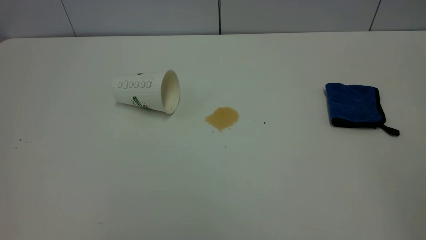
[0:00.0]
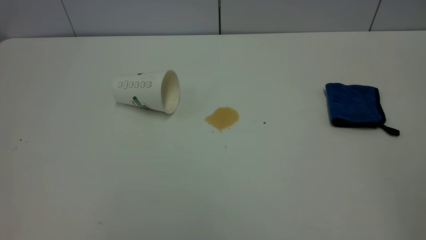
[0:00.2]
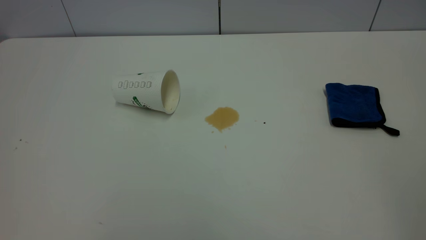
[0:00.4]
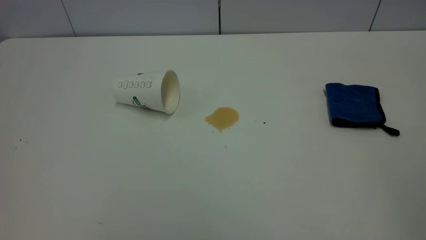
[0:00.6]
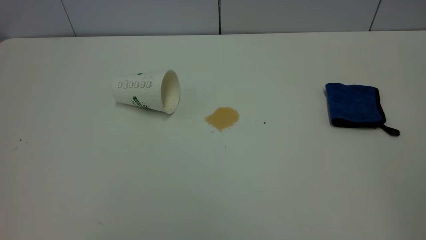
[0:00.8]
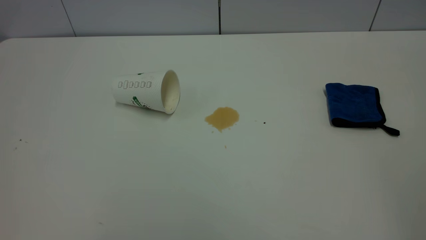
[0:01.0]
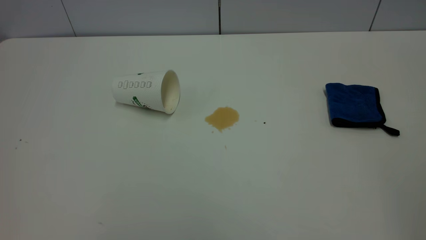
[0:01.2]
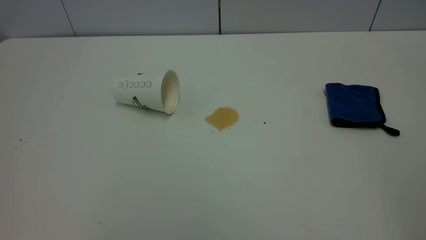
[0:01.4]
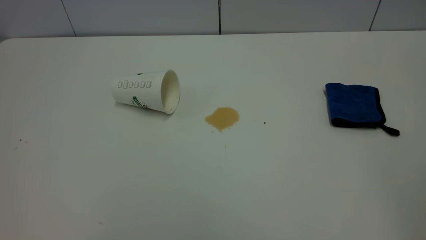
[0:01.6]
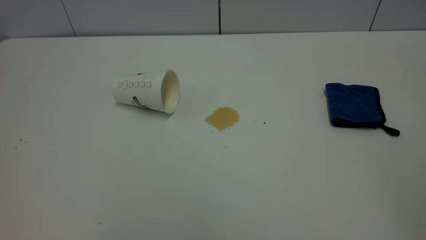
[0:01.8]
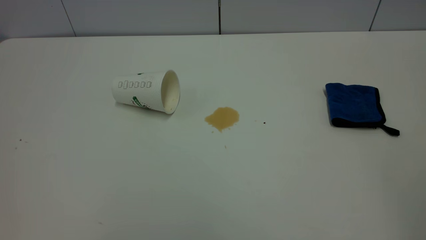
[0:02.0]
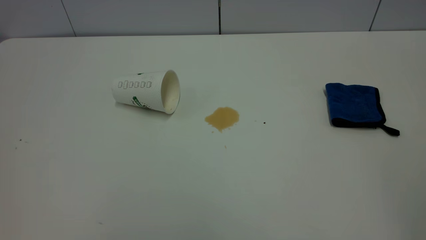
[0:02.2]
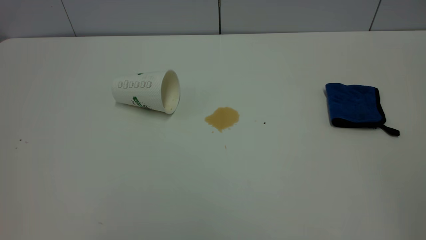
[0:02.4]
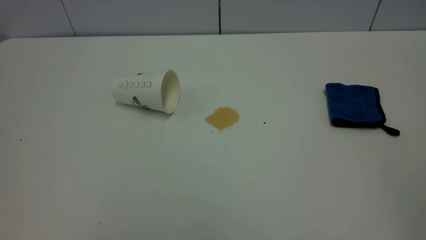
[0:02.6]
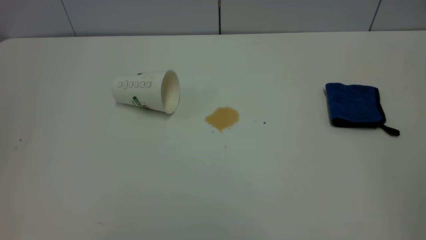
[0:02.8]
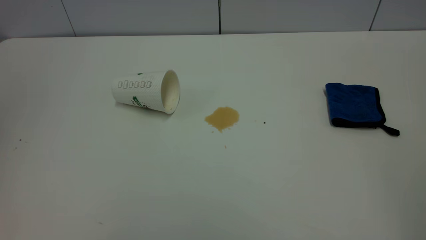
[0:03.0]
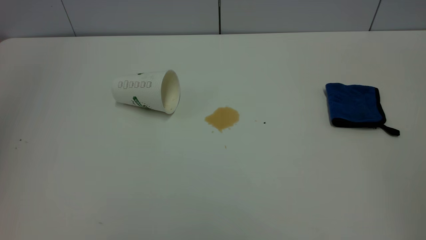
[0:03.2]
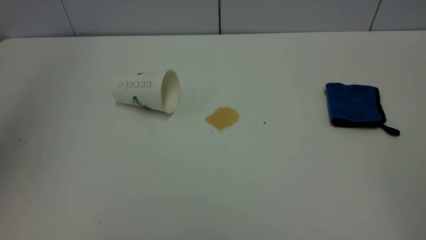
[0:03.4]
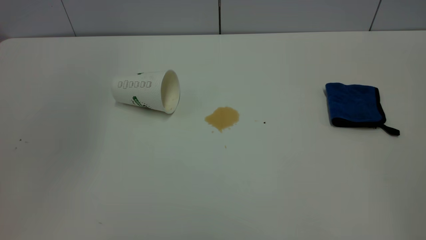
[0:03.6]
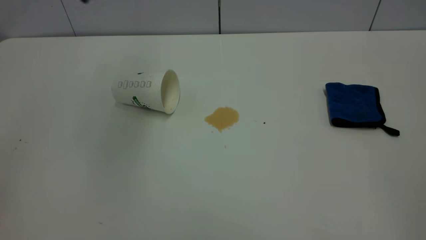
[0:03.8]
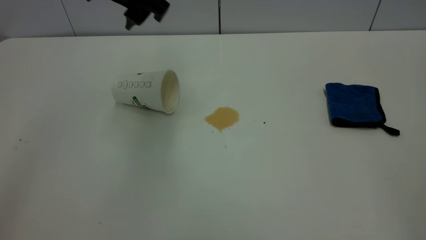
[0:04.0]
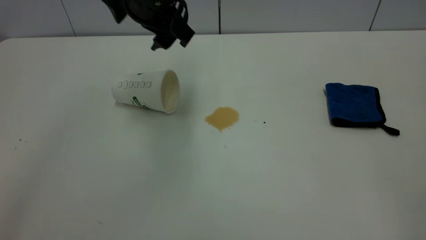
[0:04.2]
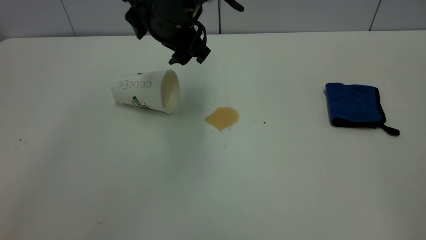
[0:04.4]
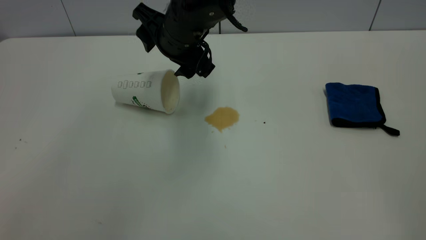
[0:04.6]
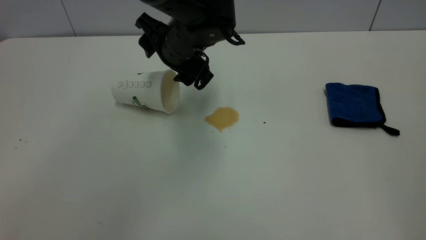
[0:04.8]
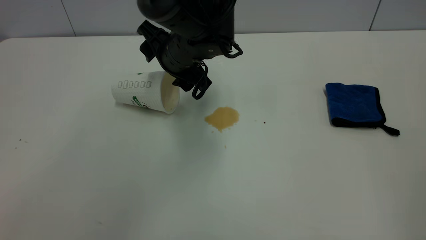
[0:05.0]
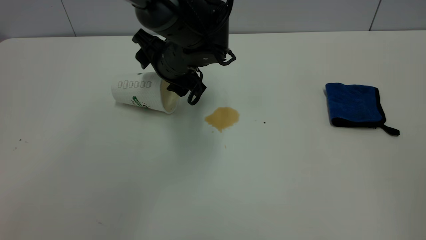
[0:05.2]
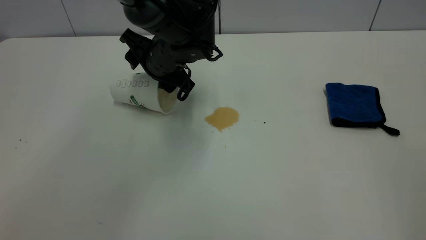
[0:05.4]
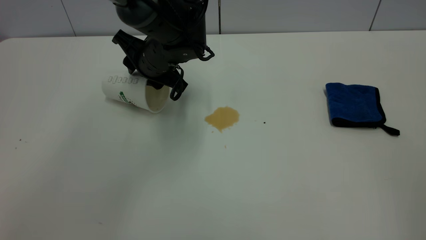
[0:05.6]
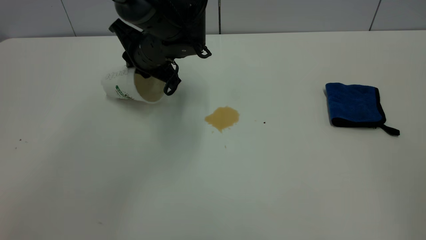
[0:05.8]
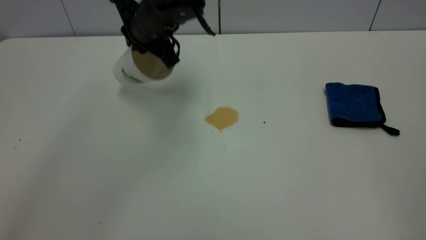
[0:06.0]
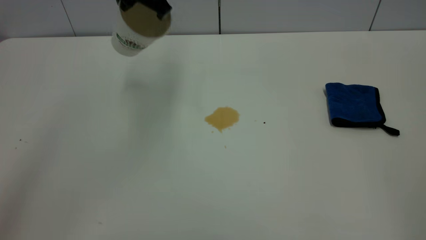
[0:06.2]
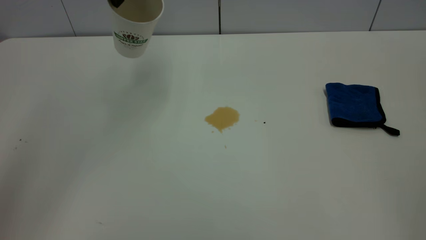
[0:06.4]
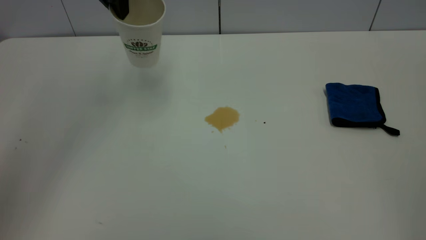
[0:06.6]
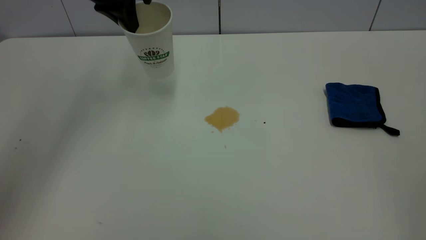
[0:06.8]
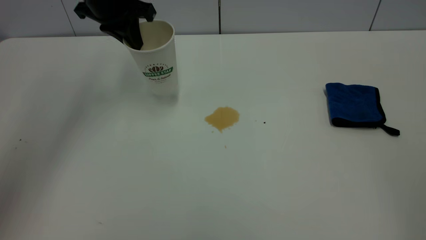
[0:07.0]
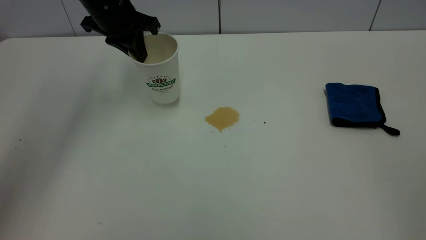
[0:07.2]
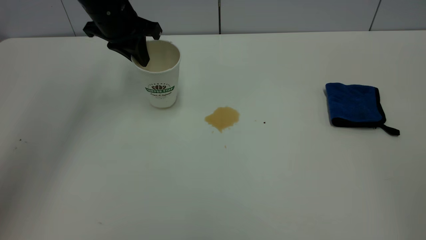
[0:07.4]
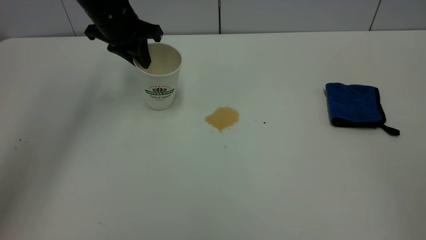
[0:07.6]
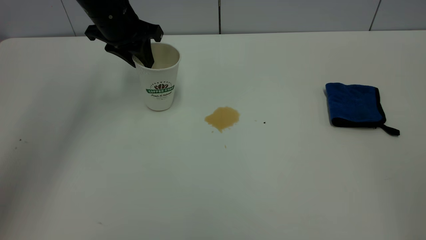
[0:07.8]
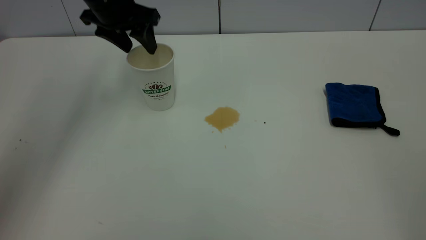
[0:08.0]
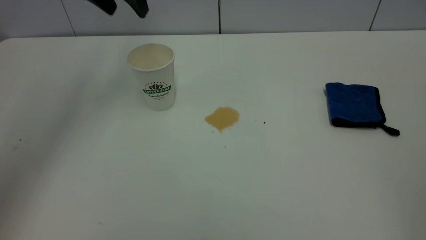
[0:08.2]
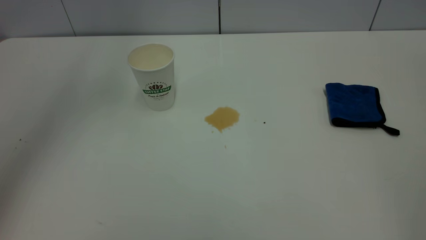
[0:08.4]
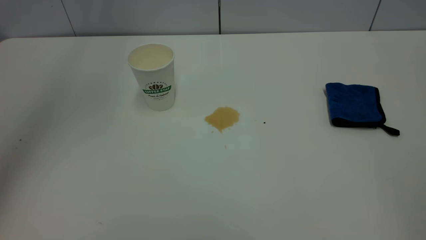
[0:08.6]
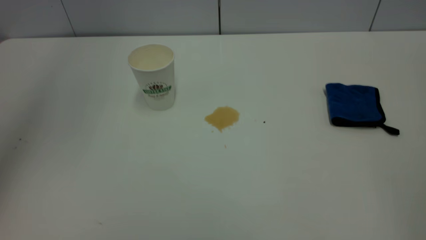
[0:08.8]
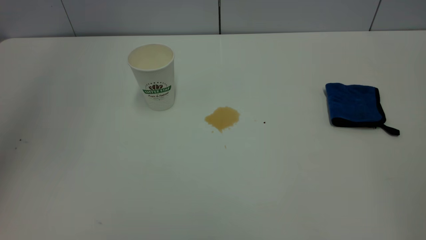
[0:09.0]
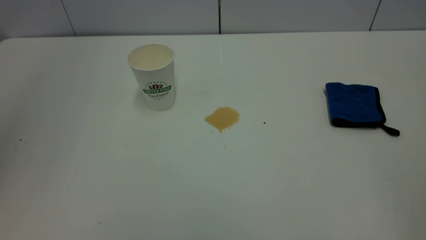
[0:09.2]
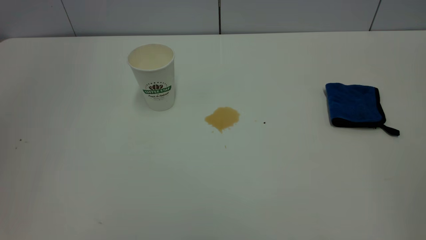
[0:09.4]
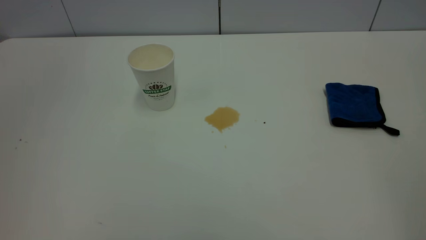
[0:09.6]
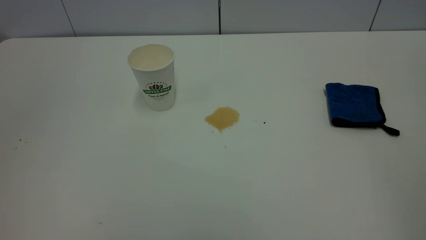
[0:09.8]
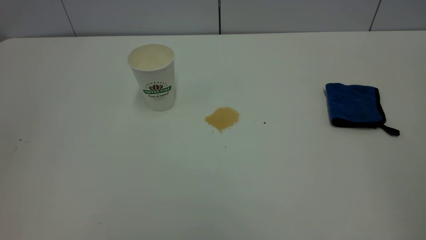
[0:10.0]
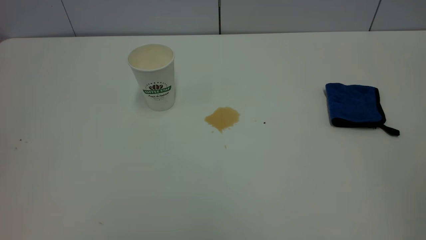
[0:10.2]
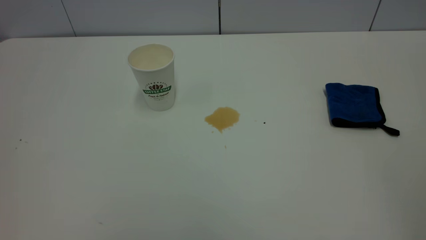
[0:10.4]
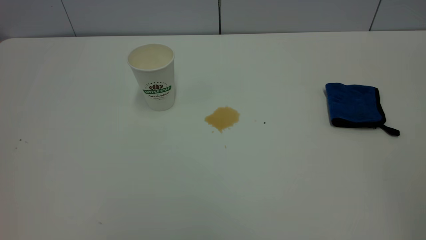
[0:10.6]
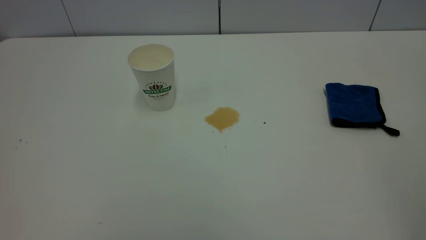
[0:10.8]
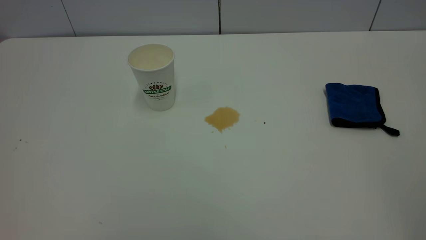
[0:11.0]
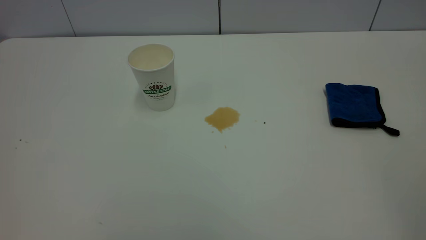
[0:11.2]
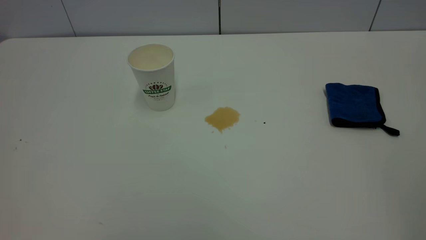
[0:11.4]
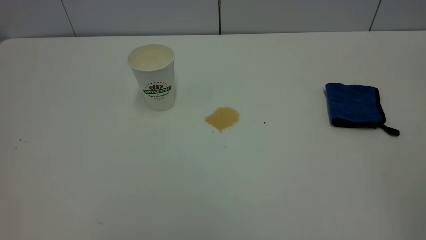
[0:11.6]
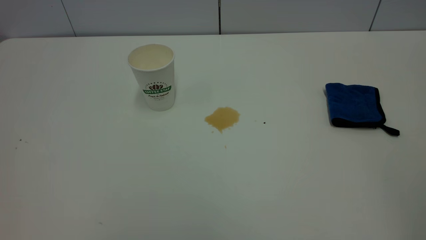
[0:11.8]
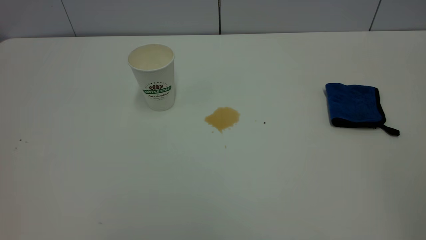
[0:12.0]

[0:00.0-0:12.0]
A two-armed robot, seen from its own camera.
Task of the whole recording: the left gripper pick up the fallen cup and place it upright, the right gripper grasp the blue rag and wipe the tea stain on the table, the right gripper put the blue rag back in its original position.
Step, 0:00.0 to 0:08.0: Stand the paper cup upright.
0:00.0 to 0:01.6: Both grippers stay put.
0:03.0 to 0:04.4: The left gripper shifts about 40 cm to the right, downward and forward.
0:04.4 to 0:06.0: The left gripper moves some 10 cm downward and comes back, and closes up.
0:06.0 to 0:07.6: The left gripper shifts about 10 cm to the left, and goes upward and returns, about 10 cm each way.
0:07.6 to 0:09.0: The left gripper shifts roughly 35 cm upward and backward, and opens.
0:09.0 to 0:10.4: The left gripper is displaced backward and downward by some 35 cm.

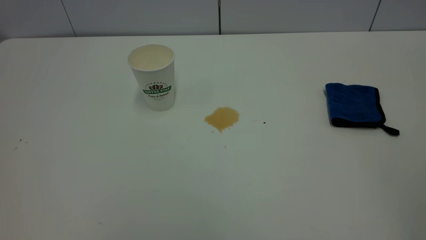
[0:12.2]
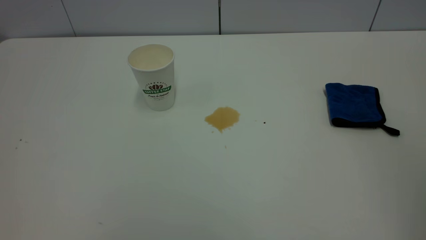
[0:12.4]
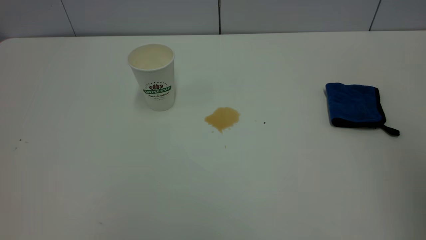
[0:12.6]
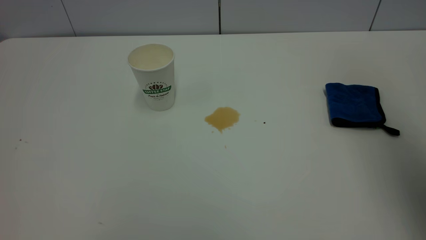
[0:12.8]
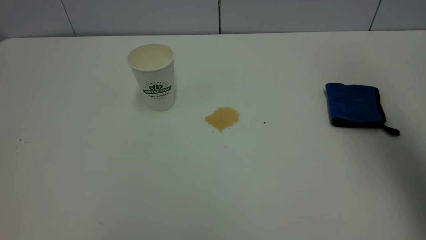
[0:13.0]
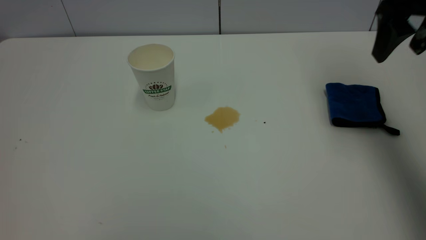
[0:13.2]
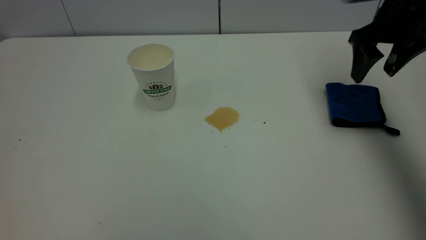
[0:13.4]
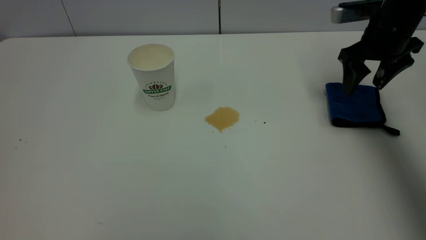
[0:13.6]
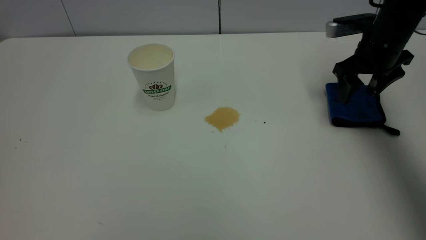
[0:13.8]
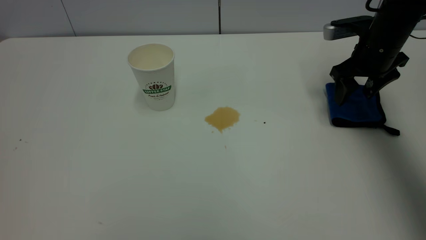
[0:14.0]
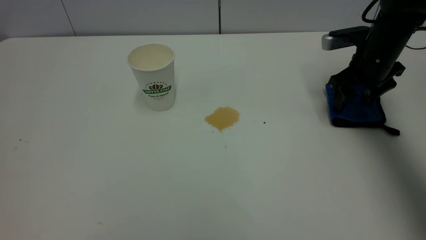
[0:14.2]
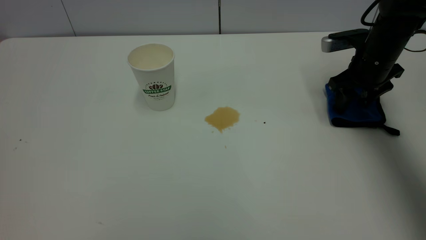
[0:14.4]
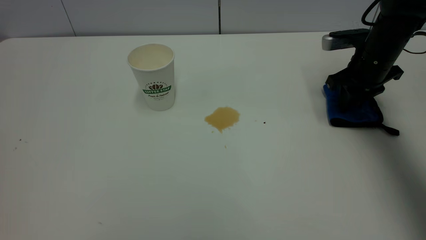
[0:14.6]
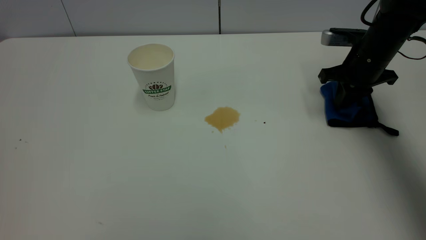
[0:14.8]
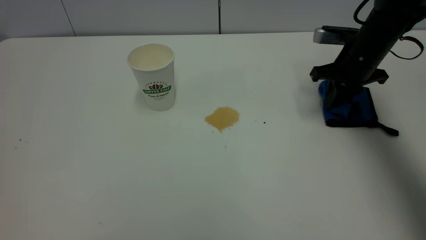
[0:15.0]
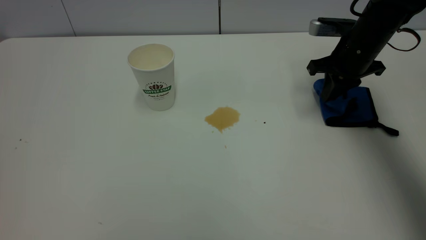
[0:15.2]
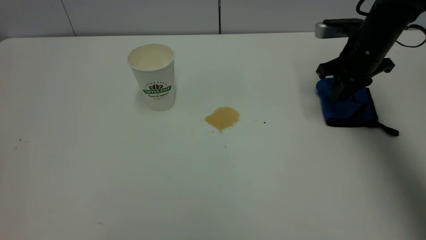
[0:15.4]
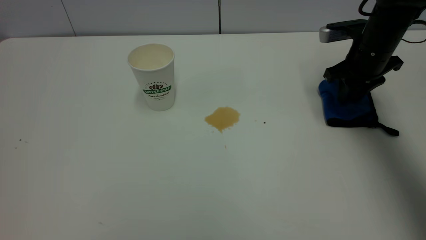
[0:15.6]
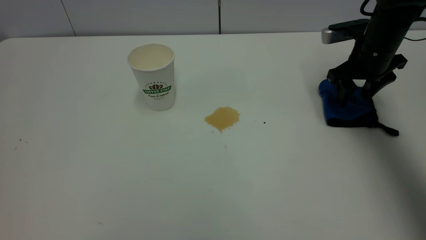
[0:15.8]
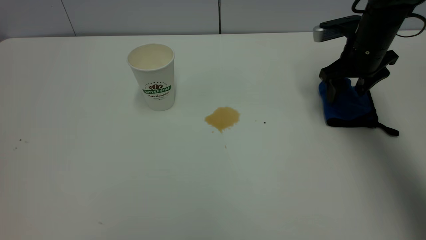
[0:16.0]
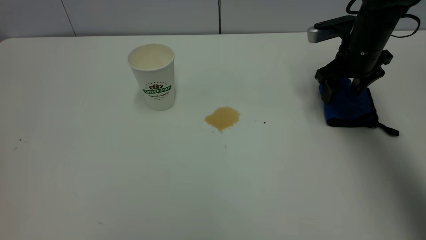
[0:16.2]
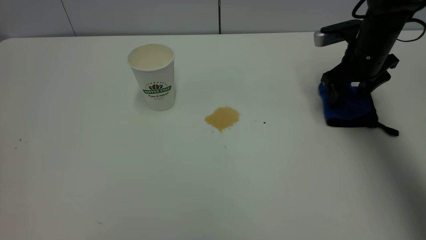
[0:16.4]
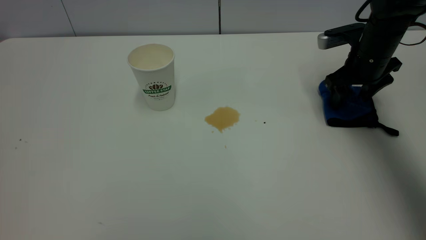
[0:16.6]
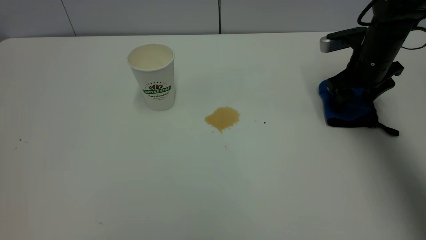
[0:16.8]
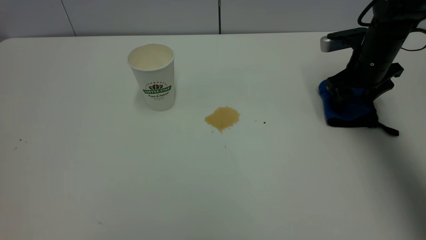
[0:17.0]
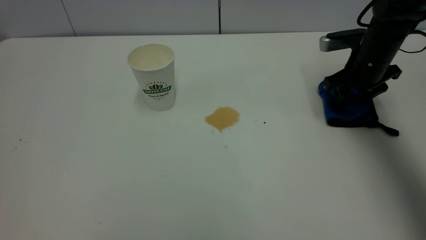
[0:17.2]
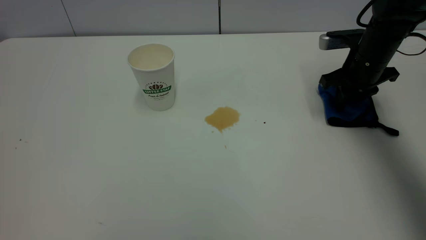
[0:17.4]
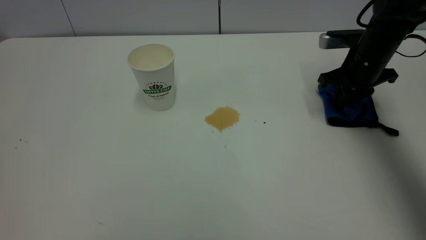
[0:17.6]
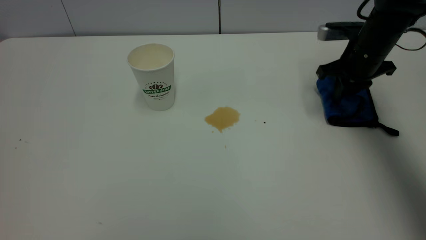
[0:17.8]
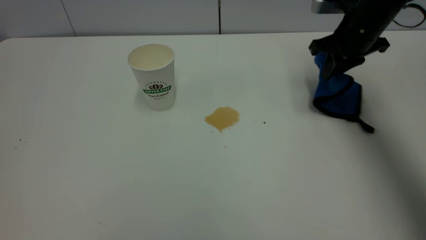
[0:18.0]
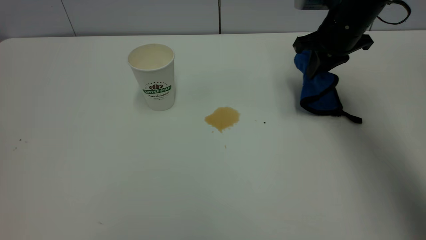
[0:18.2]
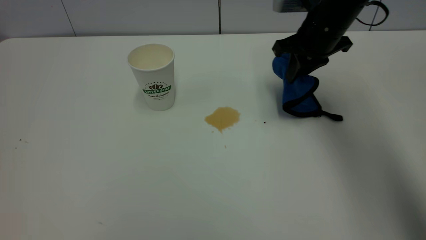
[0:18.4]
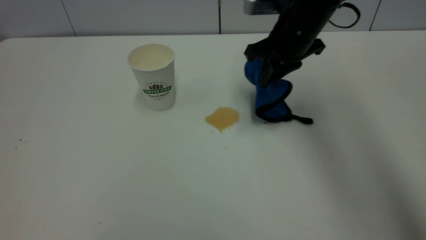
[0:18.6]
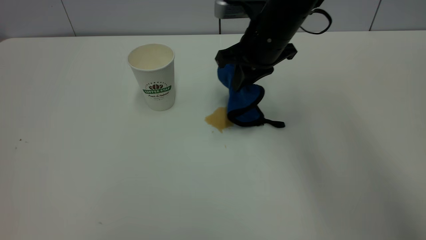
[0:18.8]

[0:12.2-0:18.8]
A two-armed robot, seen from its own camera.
Task of the whole recording: the left gripper pick up the fallen cup and place it upright, the right gripper grasp the blue rag and wipe the tea stain on the table, the right gripper put the blue rag back in its original position.
0:12.2 to 0:13.8: The right gripper moves forward and downward, some 50 cm.
0:13.8 to 0:15.4: The right gripper closes.
0:15.4 to 0:17.2: The right gripper opens up.
0:17.2 to 0:18.8: The right gripper heads to the left, covering some 20 cm, and closes its fingers.
